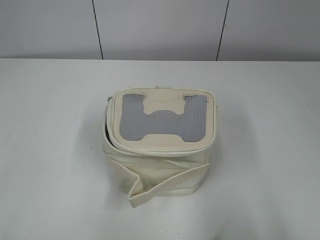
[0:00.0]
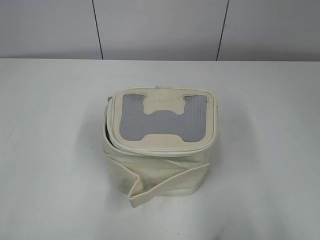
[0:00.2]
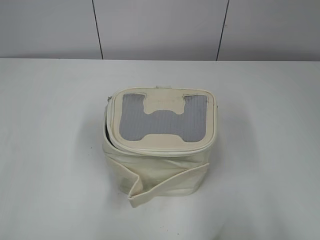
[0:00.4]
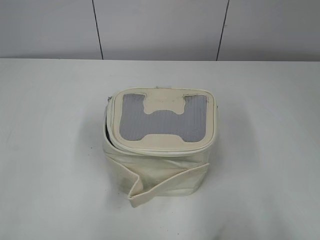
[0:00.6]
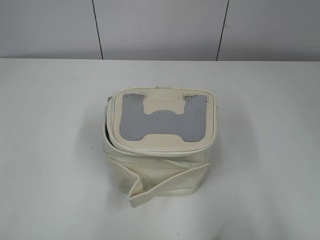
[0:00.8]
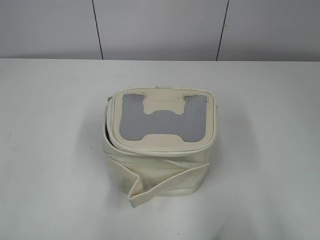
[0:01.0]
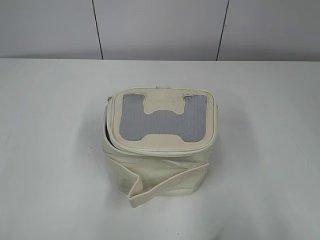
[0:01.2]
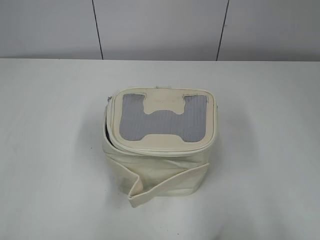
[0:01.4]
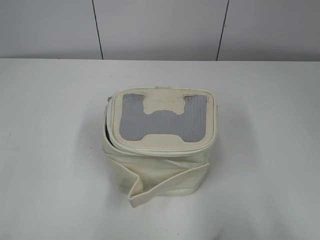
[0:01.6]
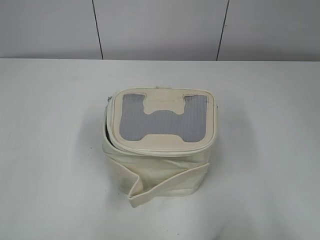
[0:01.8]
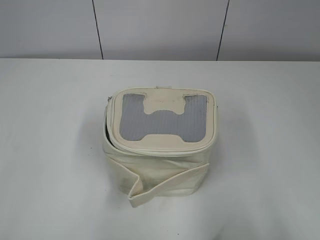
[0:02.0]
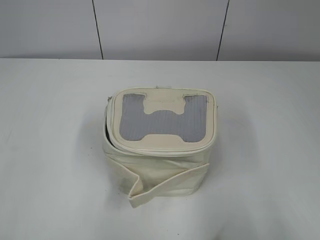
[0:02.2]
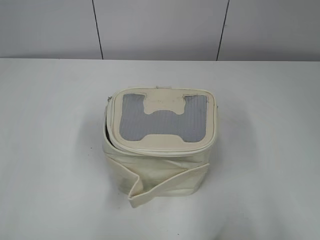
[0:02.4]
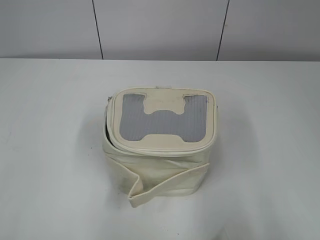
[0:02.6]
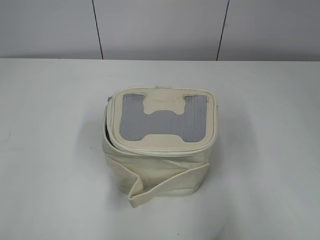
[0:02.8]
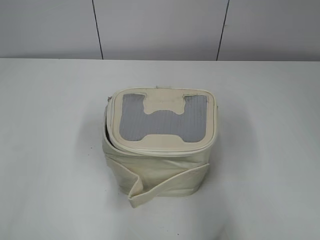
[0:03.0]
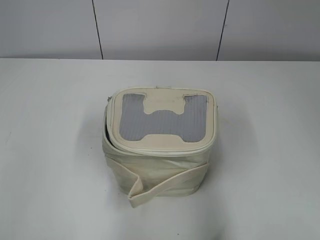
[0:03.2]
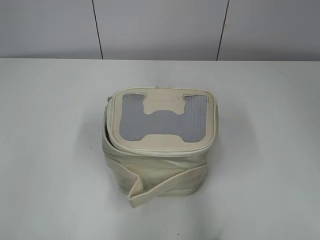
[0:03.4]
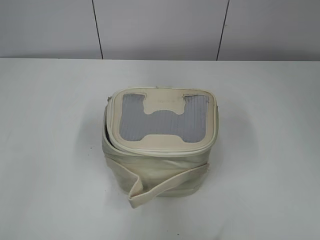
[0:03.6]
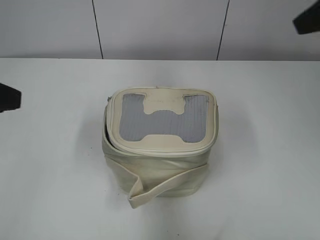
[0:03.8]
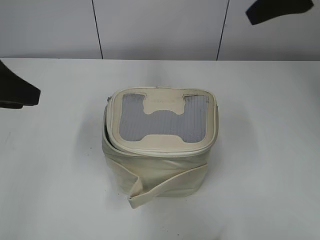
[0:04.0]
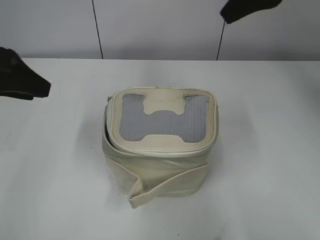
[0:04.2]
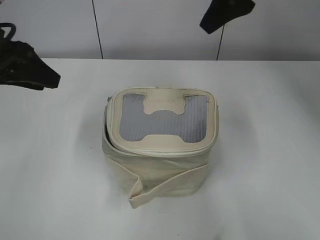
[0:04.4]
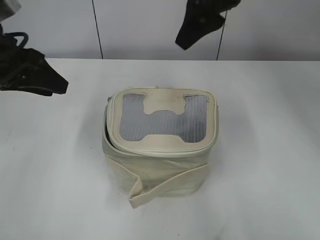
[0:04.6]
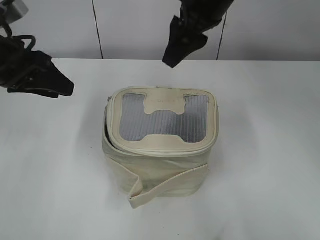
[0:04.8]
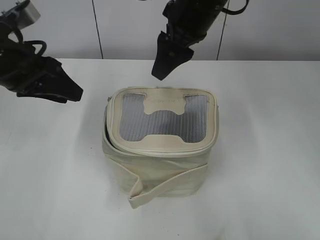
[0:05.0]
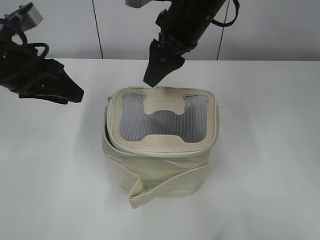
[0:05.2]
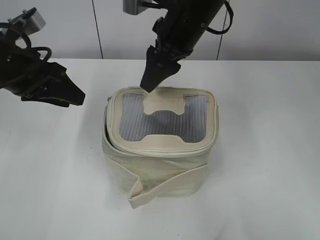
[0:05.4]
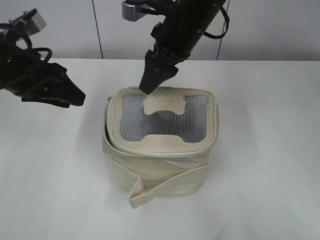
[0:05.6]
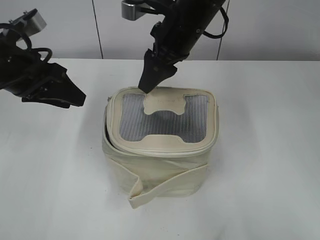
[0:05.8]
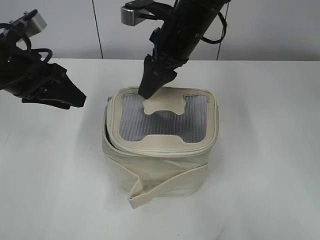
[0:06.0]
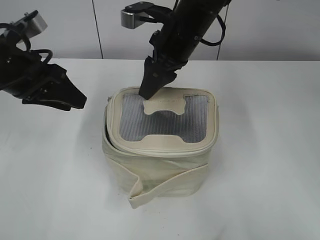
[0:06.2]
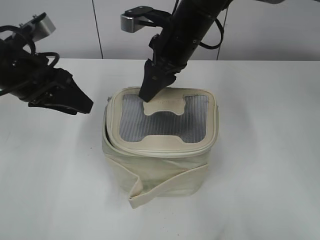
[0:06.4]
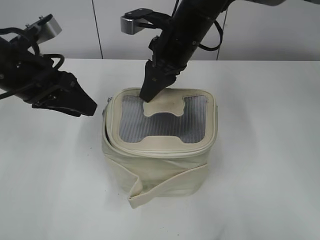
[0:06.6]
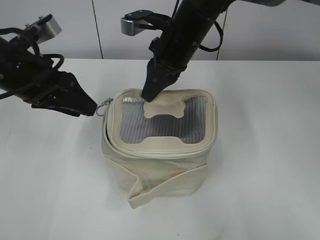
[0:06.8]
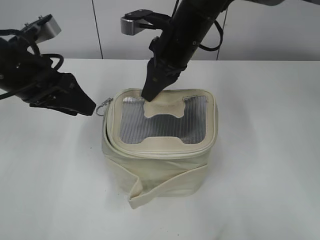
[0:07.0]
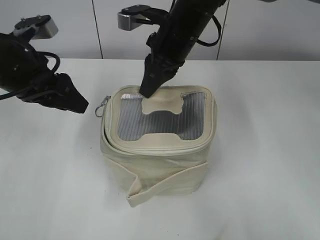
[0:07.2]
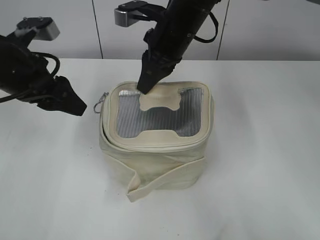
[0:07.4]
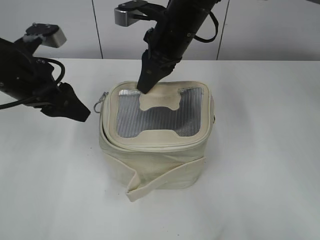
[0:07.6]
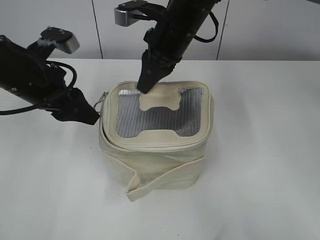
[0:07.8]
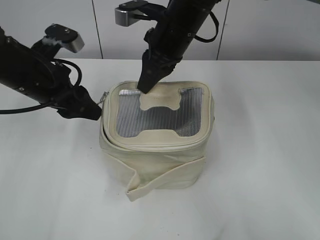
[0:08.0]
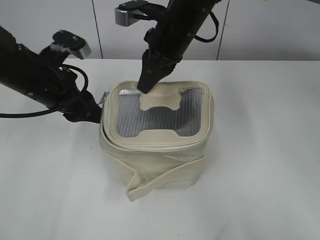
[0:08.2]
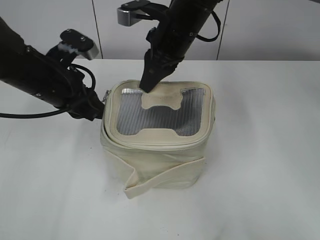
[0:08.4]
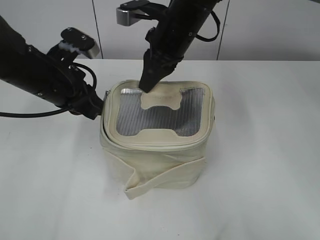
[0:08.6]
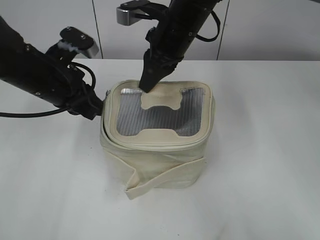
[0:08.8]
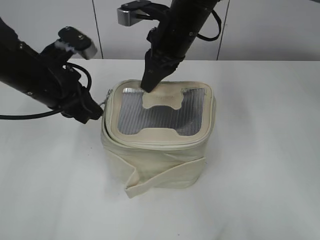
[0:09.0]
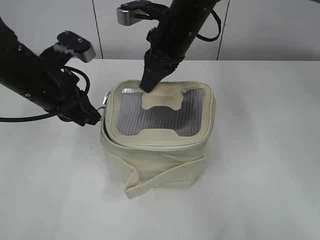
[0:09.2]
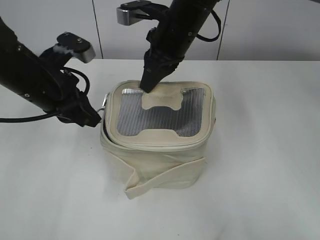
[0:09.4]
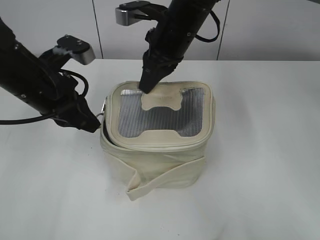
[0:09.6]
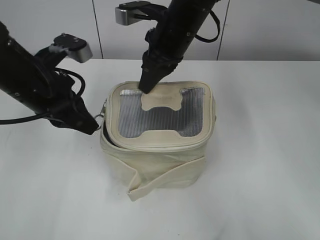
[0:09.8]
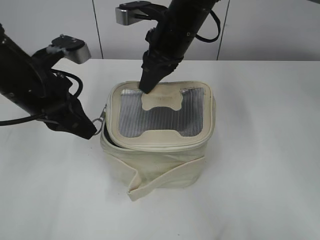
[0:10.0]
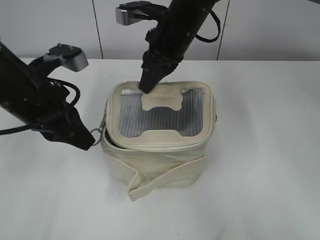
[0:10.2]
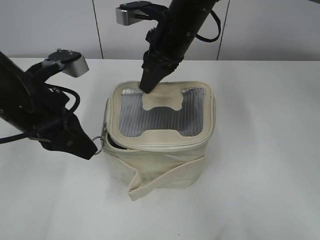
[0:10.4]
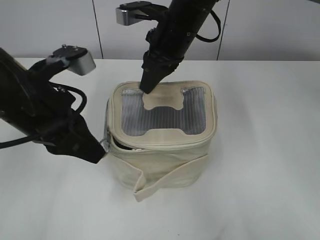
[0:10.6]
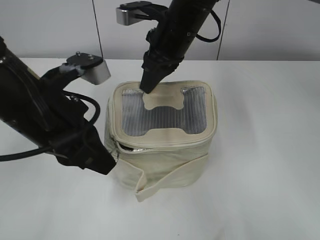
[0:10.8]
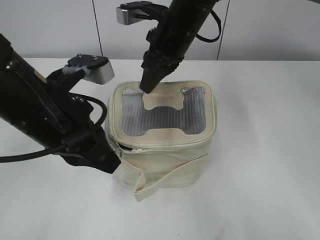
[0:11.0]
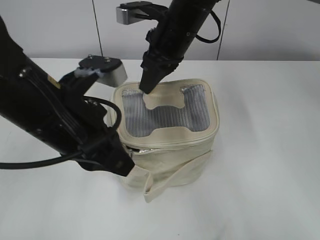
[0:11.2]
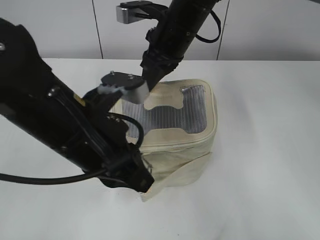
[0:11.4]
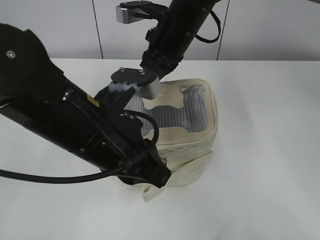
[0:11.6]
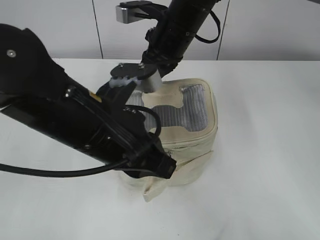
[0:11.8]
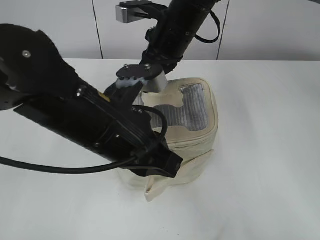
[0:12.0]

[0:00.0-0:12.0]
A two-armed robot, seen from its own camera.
0:01.6 to 0:03.0: The right gripper shifts by roughly 5 cm. The left gripper ends up approximately 5 cm from where it was.
0:03.0 to 0:04.4: The right gripper goes roughly 35 cm forward and to the left, while the left gripper heads forward, covering roughly 25 cm.
0:04.4 to 0:06.0: The left gripper shifts by roughly 5 cm. The right gripper moves downward and to the left, roughly 15 cm.
0:06.0 to 0:07.6: The right gripper closes its fingers.
0:07.6 to 0:09.0: The left gripper closes.
0:09.0 to 0:10.4: The left gripper travels backward by approximately 5 cm.
0:10.4 to 0:12.0: The left gripper moves to the right and backward, approximately 10 cm.

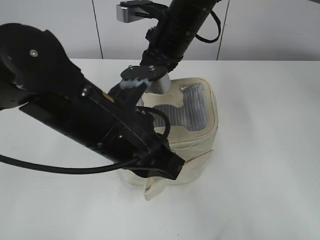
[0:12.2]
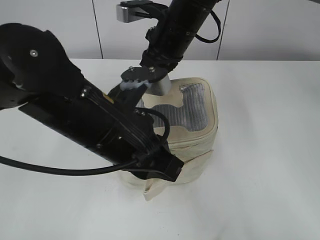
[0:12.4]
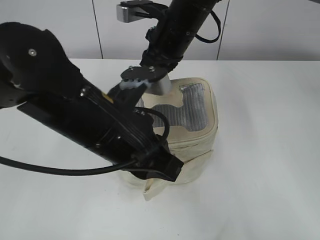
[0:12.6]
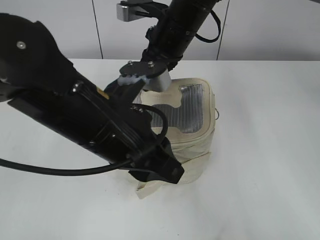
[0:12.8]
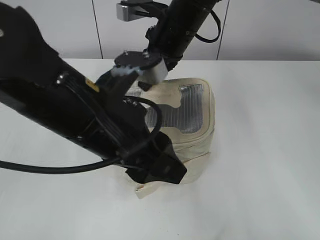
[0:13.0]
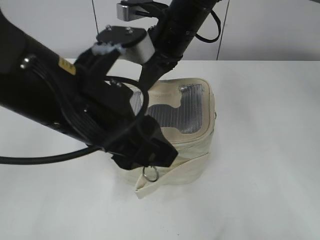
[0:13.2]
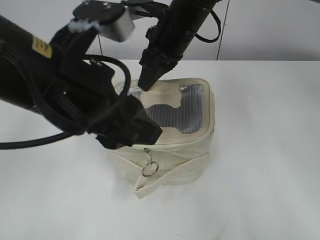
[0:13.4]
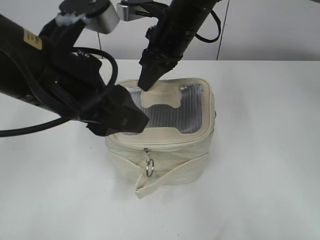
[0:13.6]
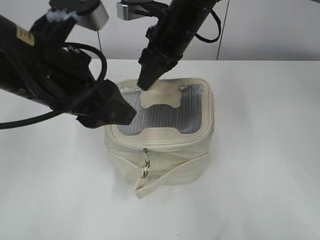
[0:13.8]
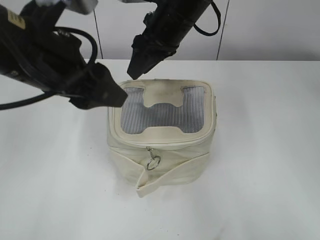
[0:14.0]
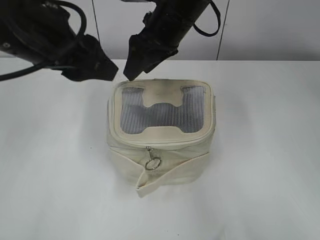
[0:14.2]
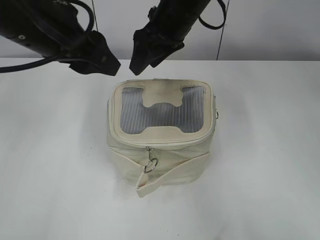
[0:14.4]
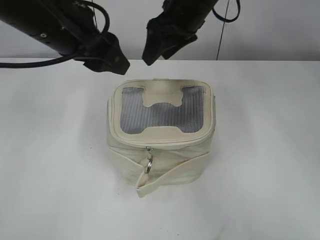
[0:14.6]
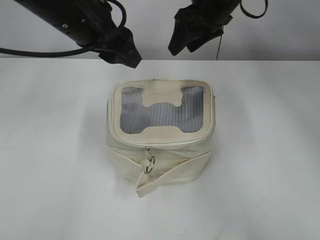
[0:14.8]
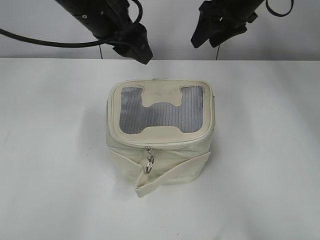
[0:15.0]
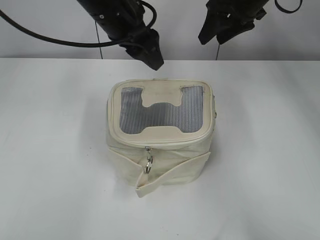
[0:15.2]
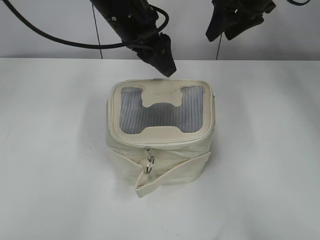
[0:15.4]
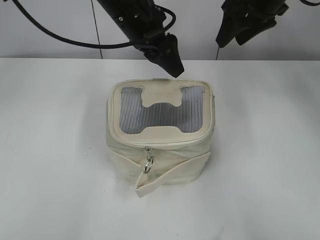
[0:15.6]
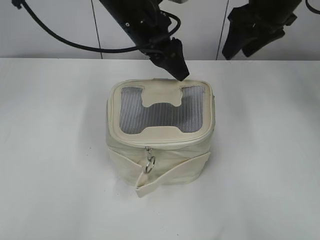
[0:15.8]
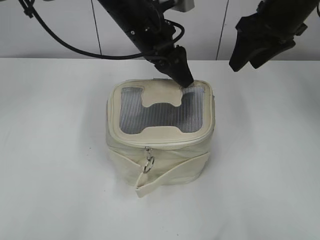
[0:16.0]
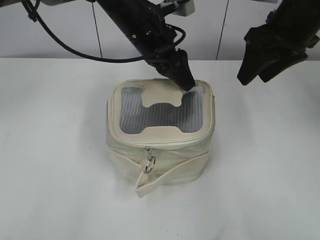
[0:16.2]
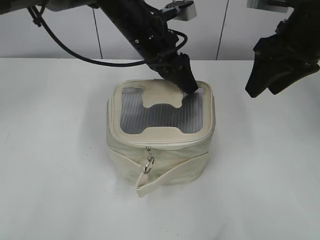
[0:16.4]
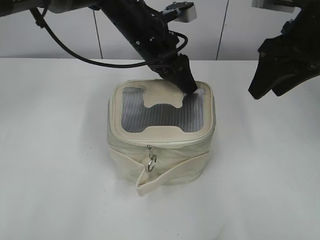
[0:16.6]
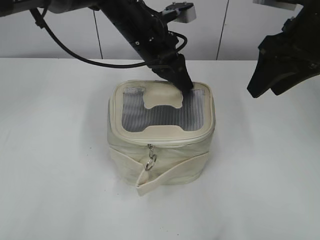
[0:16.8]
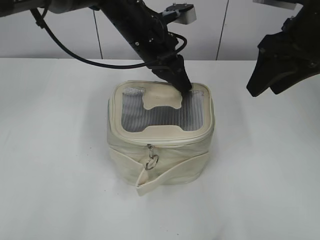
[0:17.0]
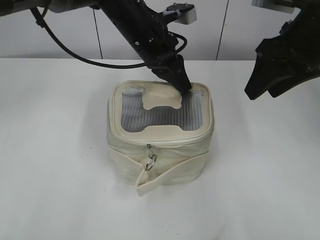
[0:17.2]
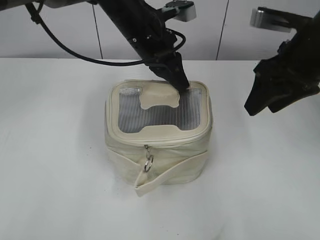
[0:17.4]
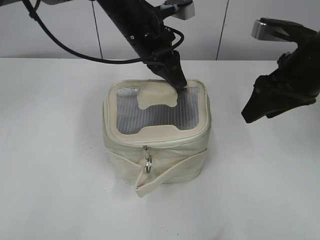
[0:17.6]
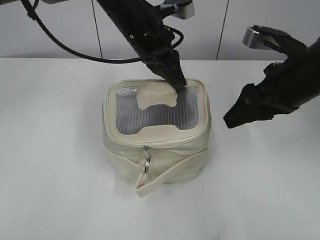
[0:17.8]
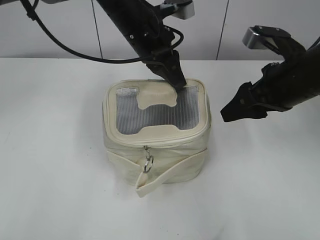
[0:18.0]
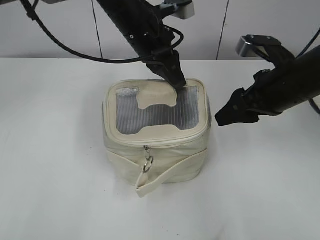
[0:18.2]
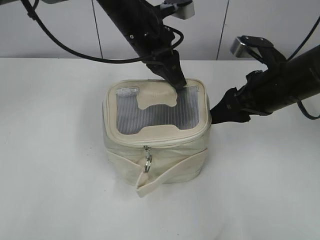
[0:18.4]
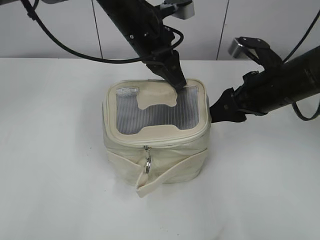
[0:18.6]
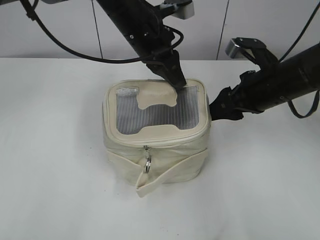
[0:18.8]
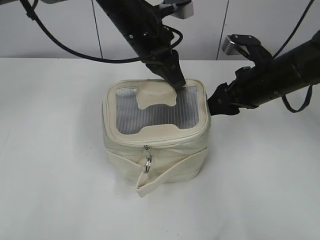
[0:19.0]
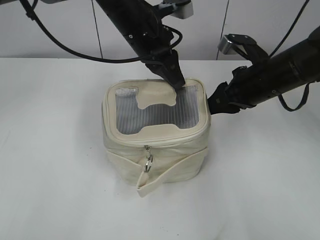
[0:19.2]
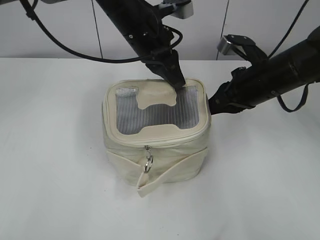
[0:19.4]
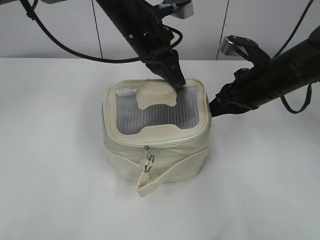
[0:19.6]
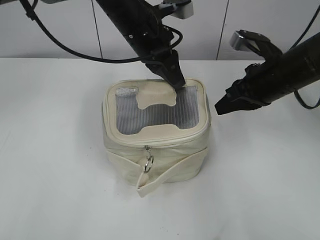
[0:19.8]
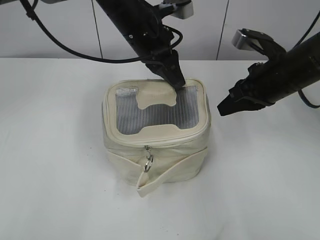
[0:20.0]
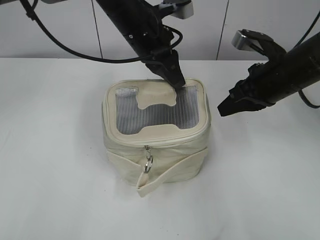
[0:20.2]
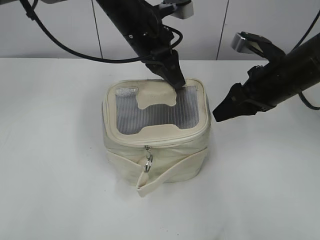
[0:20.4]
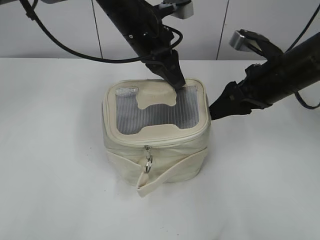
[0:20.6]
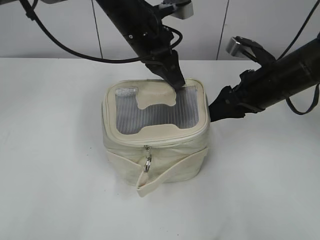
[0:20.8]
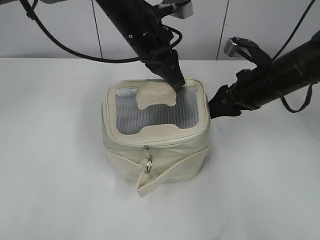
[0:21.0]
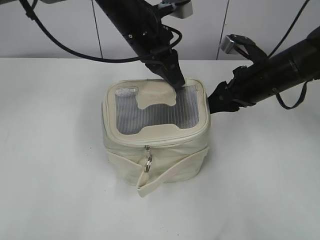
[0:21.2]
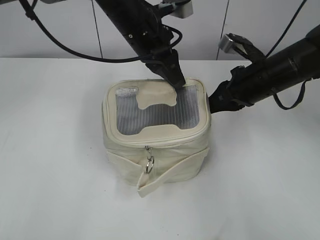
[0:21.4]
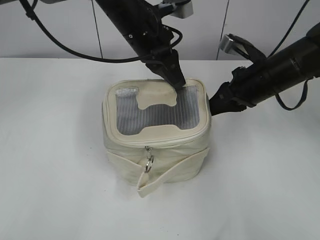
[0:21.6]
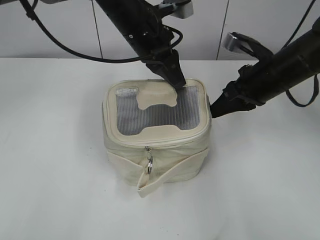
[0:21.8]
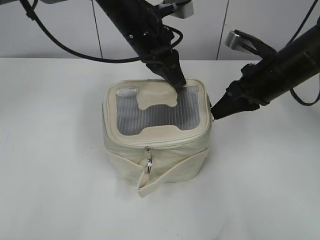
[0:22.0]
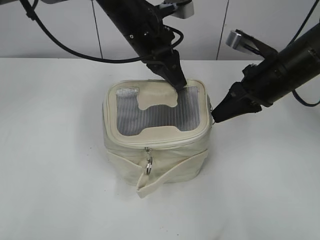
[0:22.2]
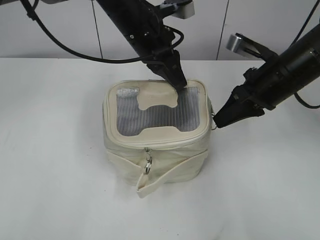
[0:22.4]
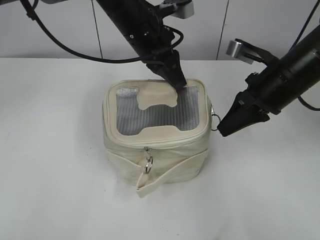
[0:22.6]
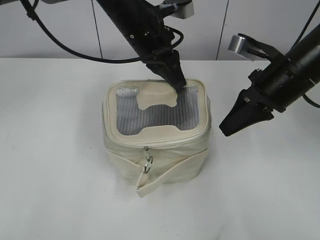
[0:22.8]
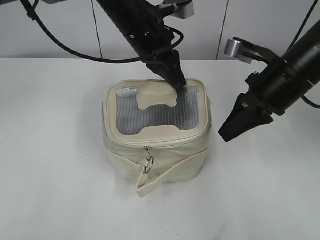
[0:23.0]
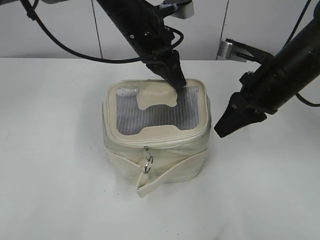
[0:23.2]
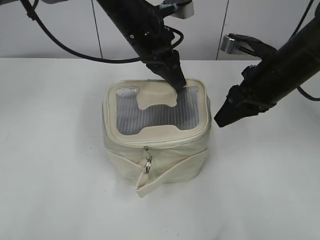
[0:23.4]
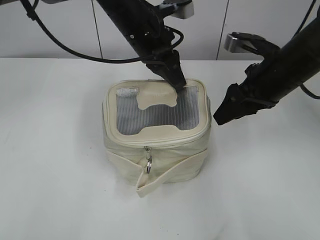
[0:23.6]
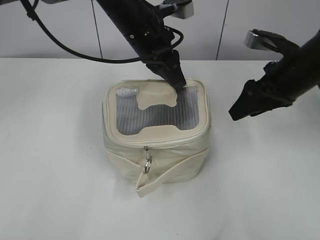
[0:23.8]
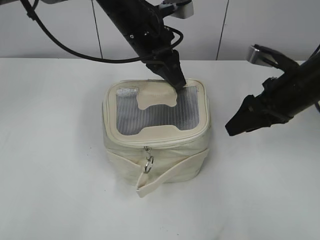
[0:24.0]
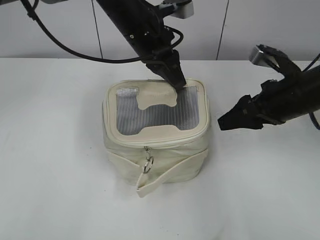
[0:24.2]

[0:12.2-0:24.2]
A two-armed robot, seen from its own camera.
0:12.2 to 0:13.8: The left gripper moves upward and to the left, approximately 10 cm, and opens.
0:13.8 to 0:15.2: The right gripper travels to the right and forward by about 15 cm, and opens up; the left gripper goes about 15 cm forward.
0:15.2 to 0:16.6: The left gripper goes about 5 cm downward. Meanwhile the right gripper travels backward by some 15 cm.
0:16.6 to 0:18.2: The left gripper closes. The right gripper goes roughly 10 cm downward.
0:18.2 to 0:19.8: The right gripper closes up.
0:19.8 to 0:21.2: The right gripper opens.
0:21.2 to 0:22.6: The right gripper closes its fingers.
0:22.6 to 0:24.2: The right gripper opens its fingers.
